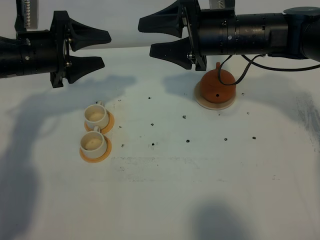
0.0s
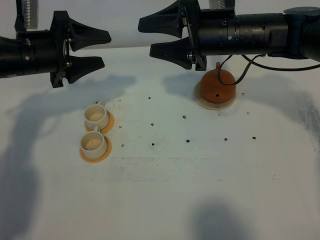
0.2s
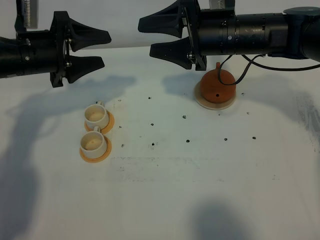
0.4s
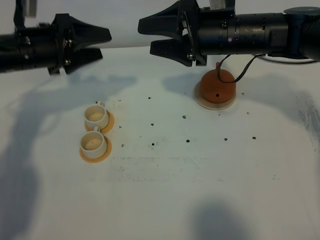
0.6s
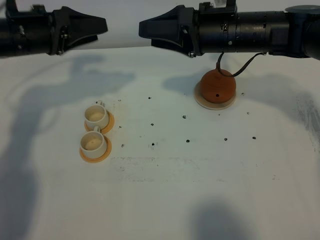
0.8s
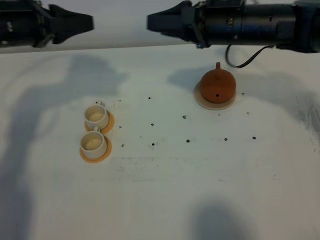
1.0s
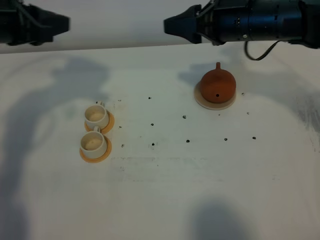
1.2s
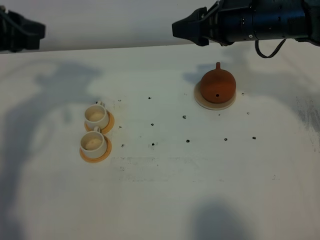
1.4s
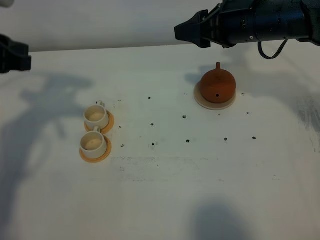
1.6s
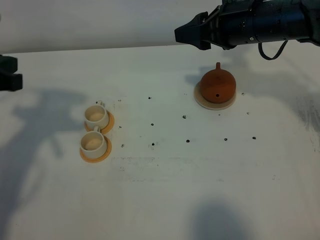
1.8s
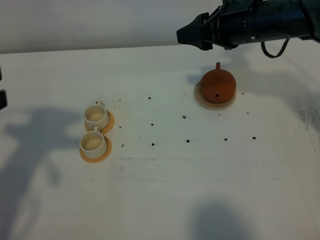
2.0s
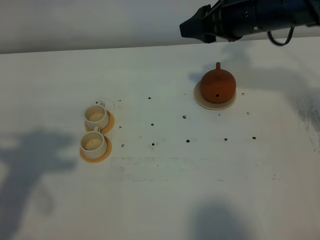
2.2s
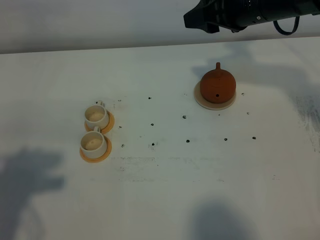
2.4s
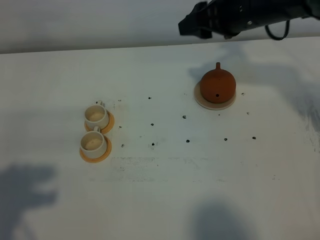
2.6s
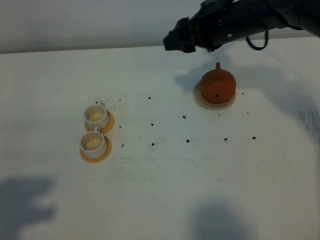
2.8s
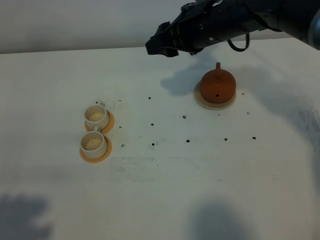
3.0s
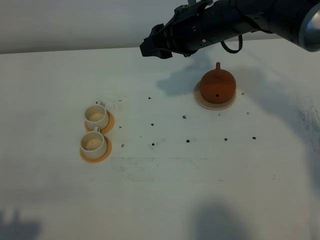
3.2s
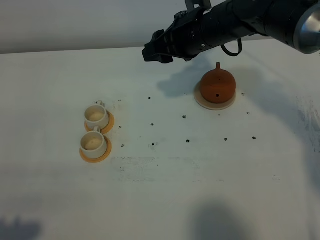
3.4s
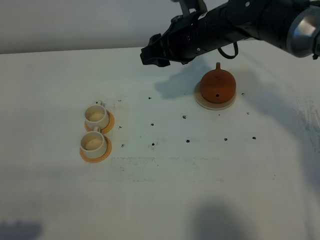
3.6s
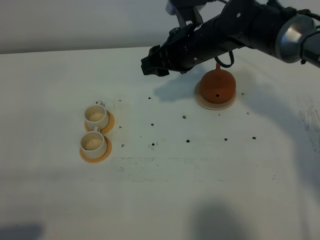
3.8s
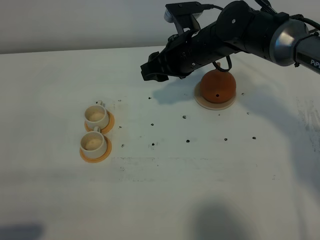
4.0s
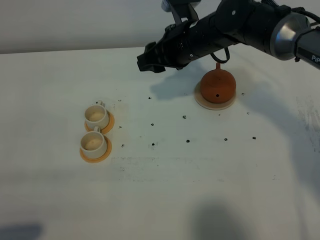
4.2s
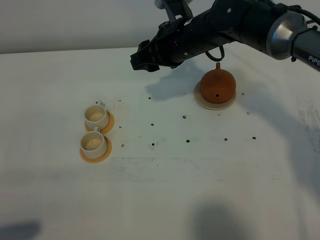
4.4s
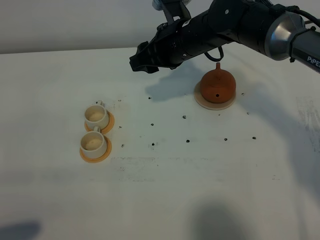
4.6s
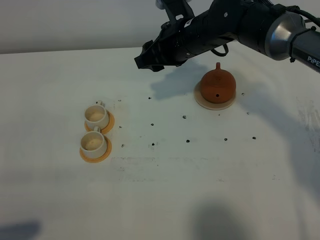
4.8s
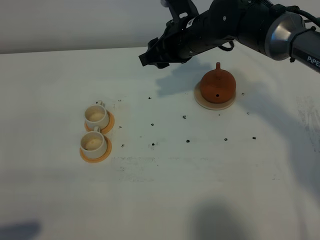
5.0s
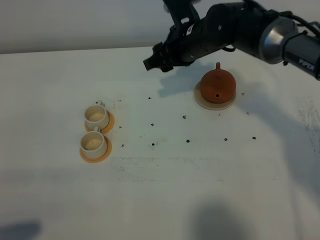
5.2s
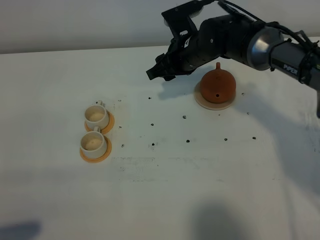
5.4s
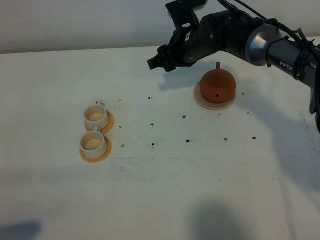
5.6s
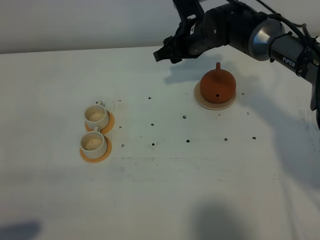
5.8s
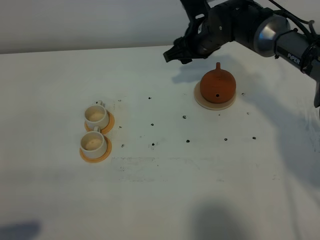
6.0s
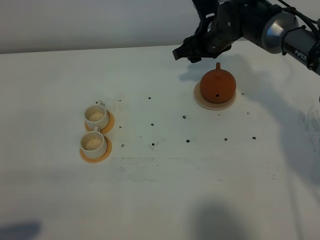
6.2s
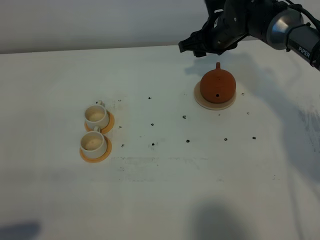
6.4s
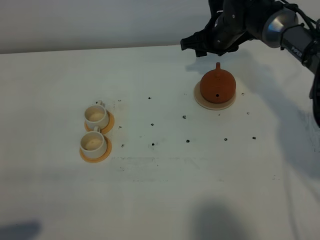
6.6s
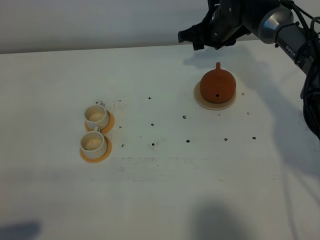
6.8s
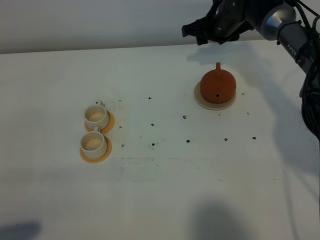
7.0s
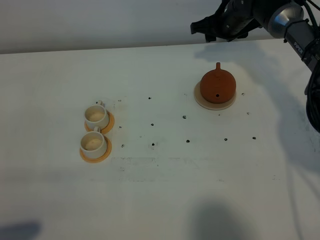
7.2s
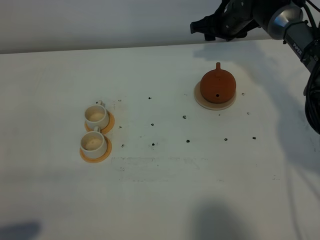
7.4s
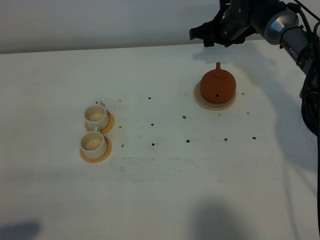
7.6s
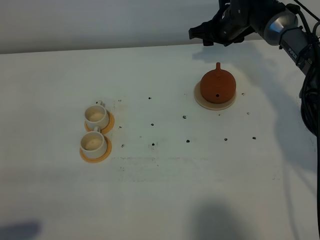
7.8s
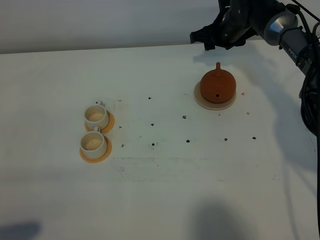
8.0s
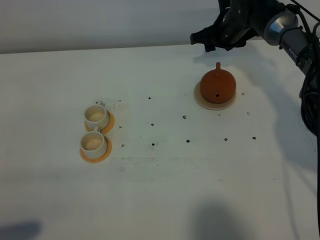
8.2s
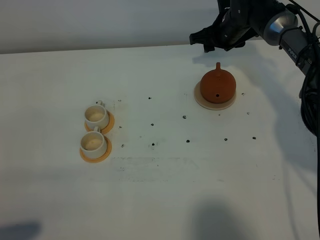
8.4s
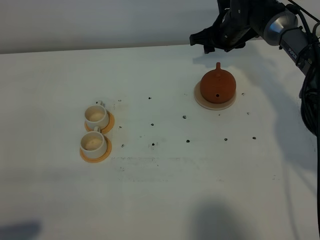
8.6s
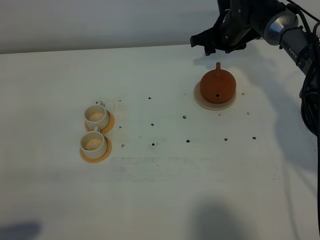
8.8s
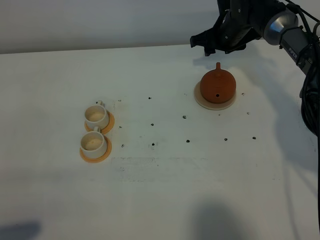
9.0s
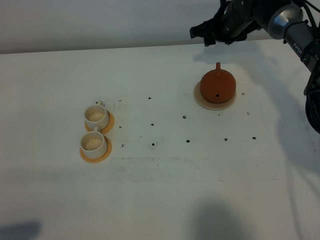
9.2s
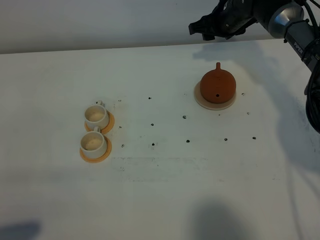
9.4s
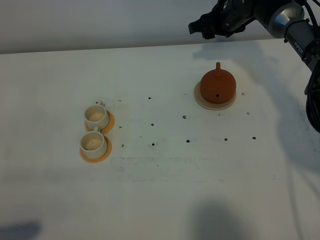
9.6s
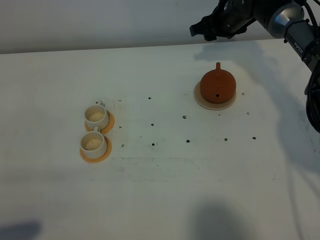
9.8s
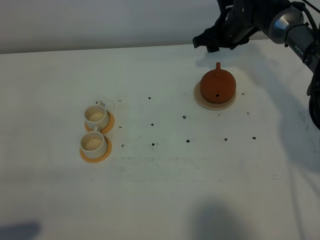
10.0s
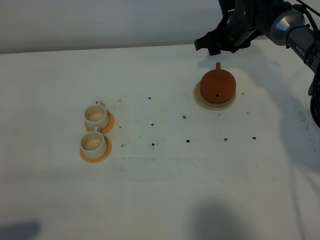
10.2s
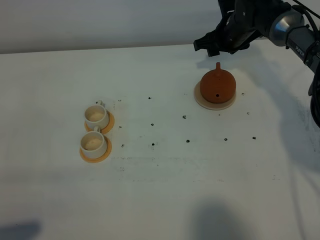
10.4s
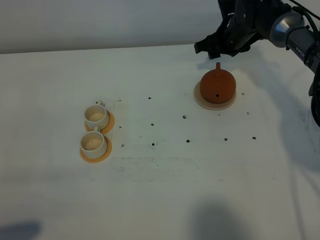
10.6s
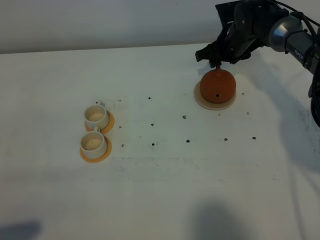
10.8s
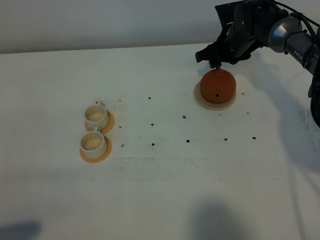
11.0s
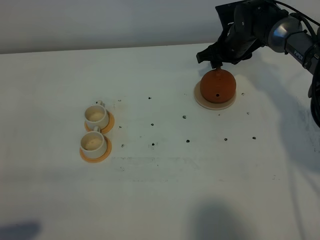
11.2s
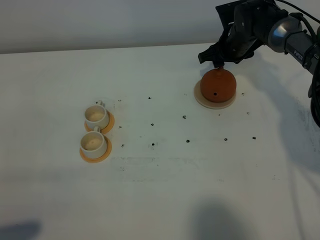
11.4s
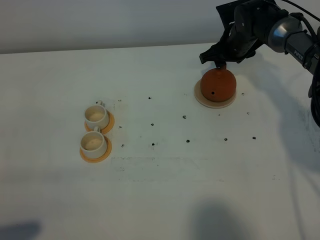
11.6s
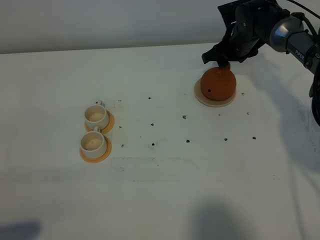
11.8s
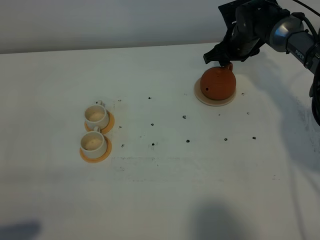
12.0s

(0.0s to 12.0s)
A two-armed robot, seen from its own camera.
Task of the whole recording: grasp the brown teapot and pour the tea into the two white teacups one by one, put the brown teapot back in its original place.
0.0s - 1.6s: The left gripper goes roughly 15 cm upward, backward and to the left.
1.6s - 3.0s: The left gripper moves backward, roughly 25 cm, while the right gripper heads to the left, covering some 5 cm.
3.0s - 4.4s: The left gripper goes roughly 5 cm downward. Meanwhile the right gripper moves roughly 5 cm.
4.4s - 6.0s: The right gripper moves forward and to the right, about 10 cm.
6.0s - 7.6s: The right gripper goes approximately 10 cm forward and to the right.
7.6s - 12.0s: The grippers make only small movements.

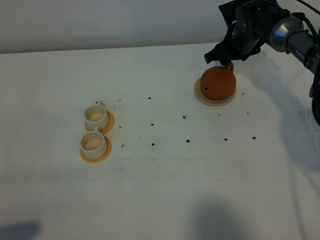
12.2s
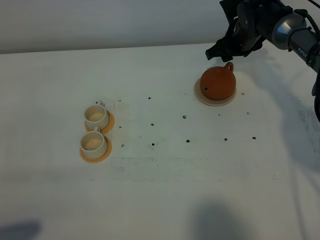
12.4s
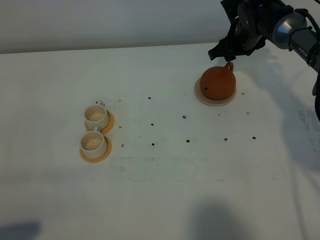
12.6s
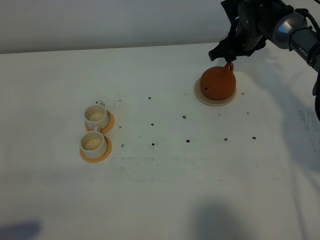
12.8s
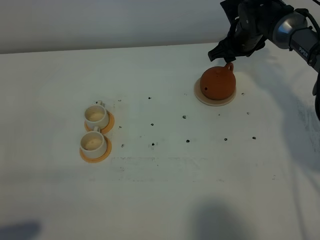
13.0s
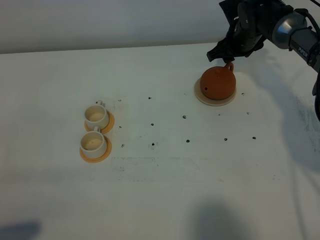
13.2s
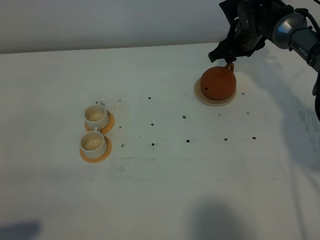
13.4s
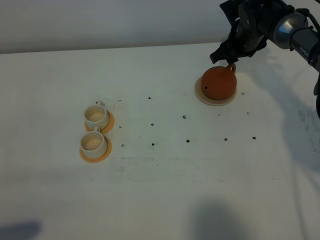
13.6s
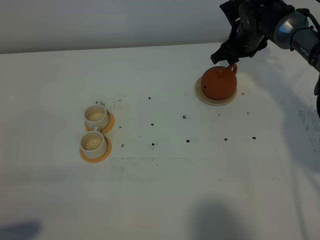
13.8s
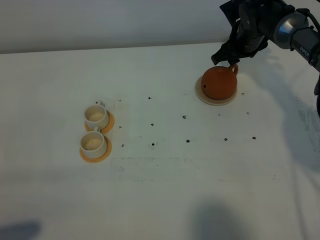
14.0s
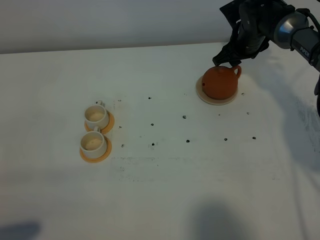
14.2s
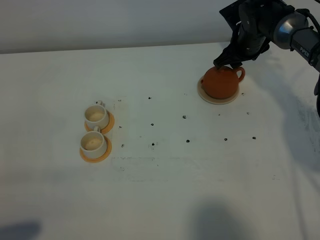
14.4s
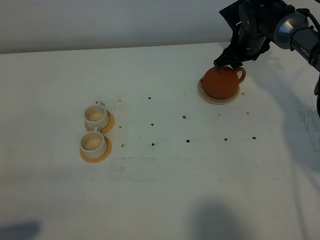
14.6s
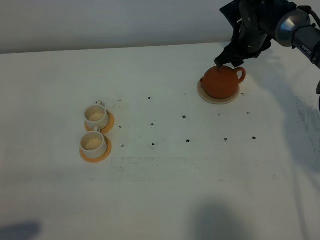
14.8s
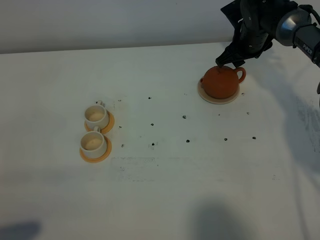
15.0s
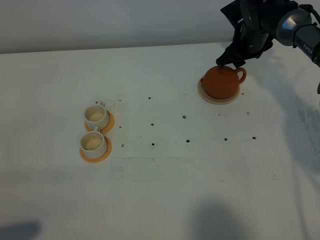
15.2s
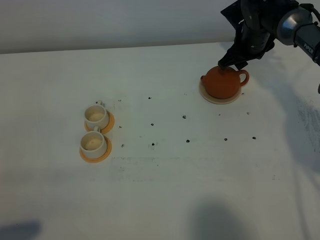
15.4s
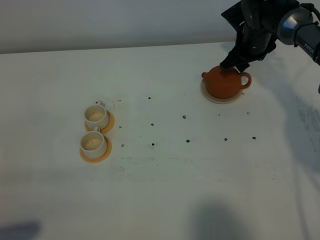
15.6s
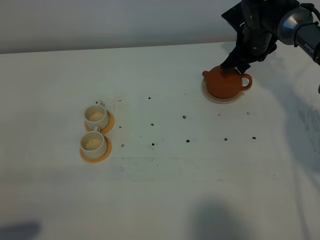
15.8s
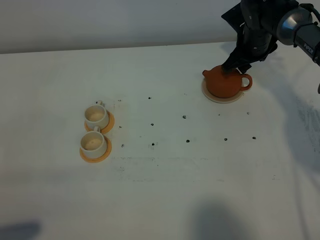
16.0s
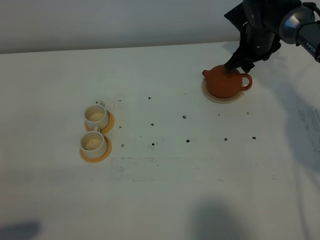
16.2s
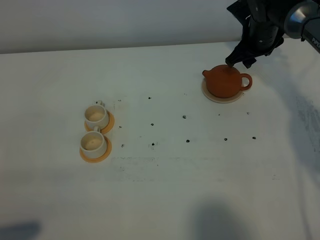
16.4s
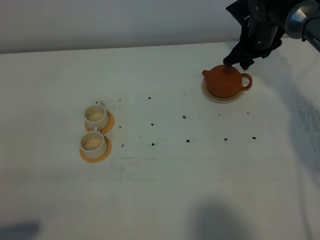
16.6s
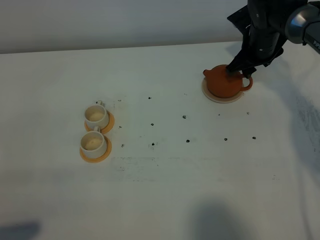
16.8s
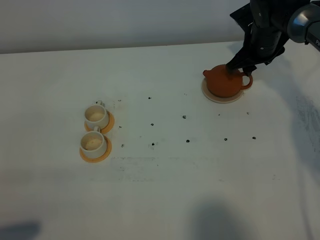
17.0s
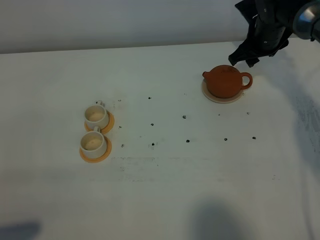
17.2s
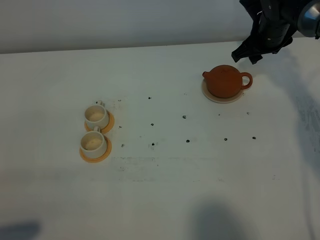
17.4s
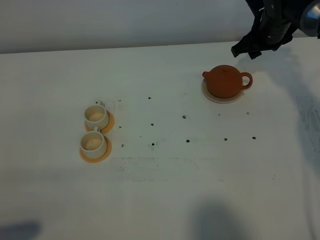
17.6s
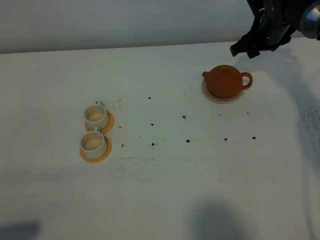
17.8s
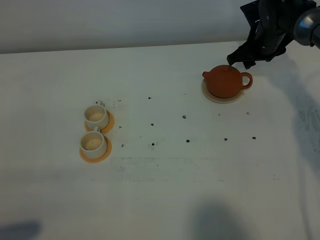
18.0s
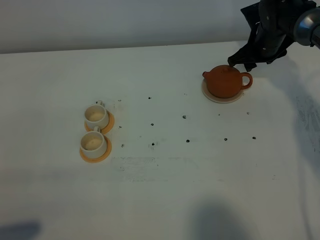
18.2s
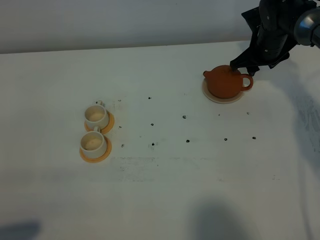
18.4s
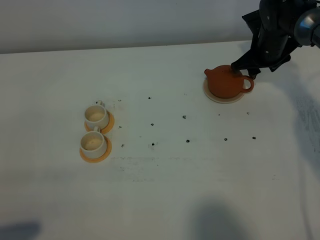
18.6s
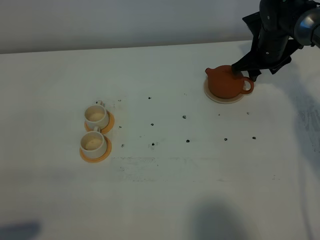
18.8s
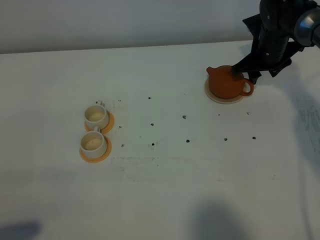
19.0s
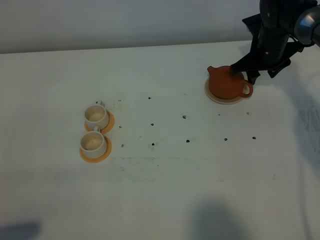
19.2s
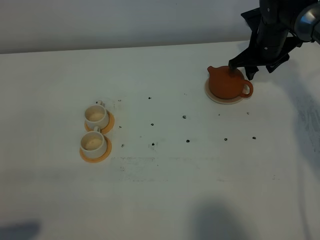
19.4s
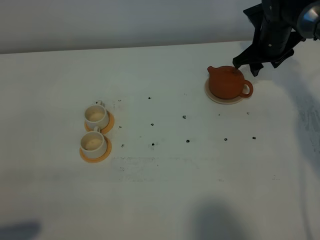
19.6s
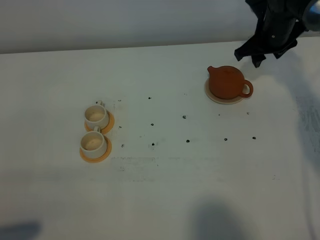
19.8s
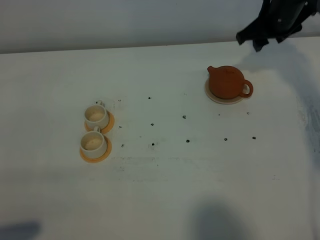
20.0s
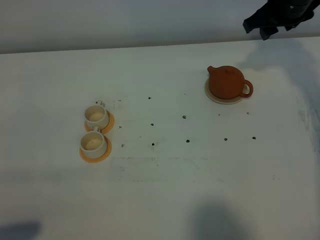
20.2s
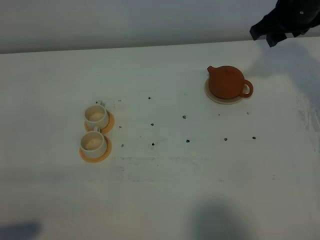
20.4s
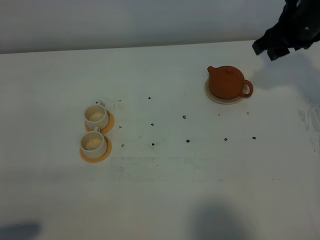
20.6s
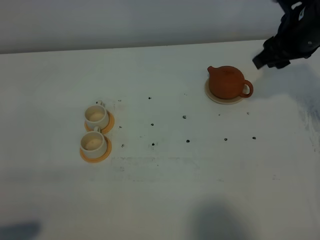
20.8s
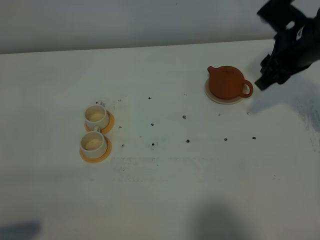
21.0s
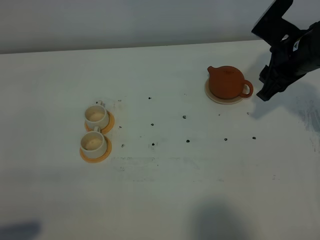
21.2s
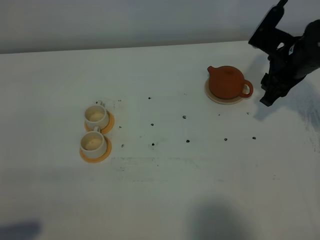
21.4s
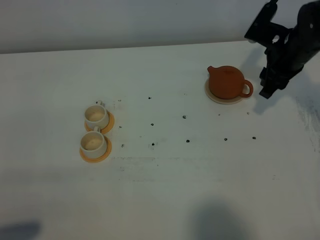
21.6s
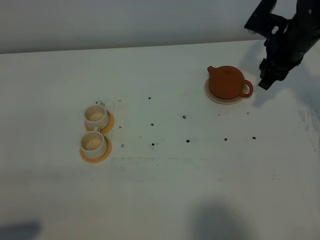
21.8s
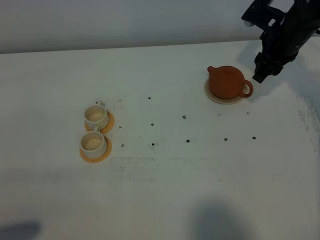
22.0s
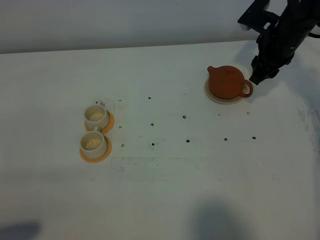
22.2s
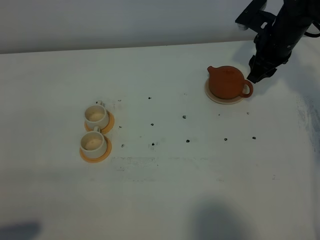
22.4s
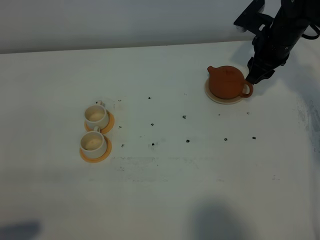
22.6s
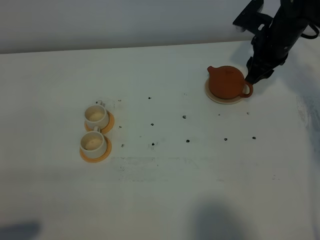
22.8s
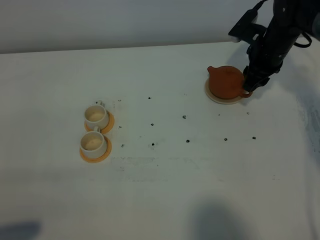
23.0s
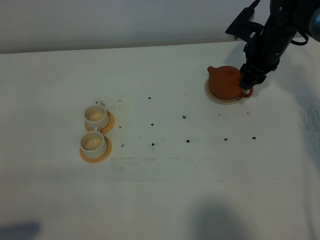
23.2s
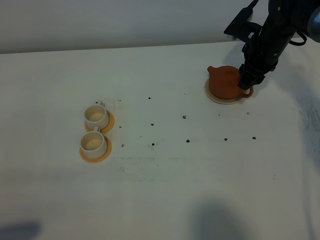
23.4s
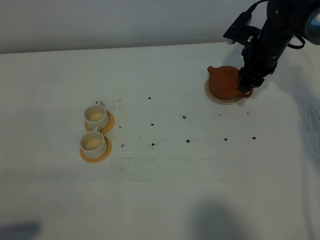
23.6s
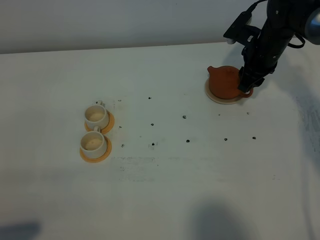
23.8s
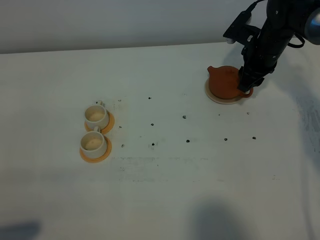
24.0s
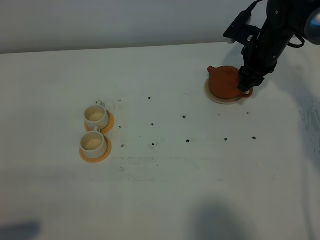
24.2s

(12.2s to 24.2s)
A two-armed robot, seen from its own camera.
Task of the whole recording: grasp the brown teapot and pour the tea into the two white teacups one by one, put the brown teapot back in its original place.
12.2s - 16.6s: The grippers move only a little.
16.6s - 18.2s: The grippers stay close to where they were, moving slightly.
18.2s - 19.8s: The right gripper goes approximately 5 cm upward.
19.8s - 21.2s: The right gripper travels backward by roughly 10 cm.
21.2s - 22.6s: The right gripper is displaced forward by roughly 10 cm.
22.6s - 24.2s: The grippers stay close to where they were, moving slightly.
